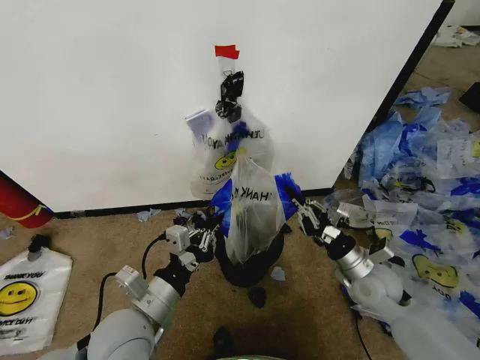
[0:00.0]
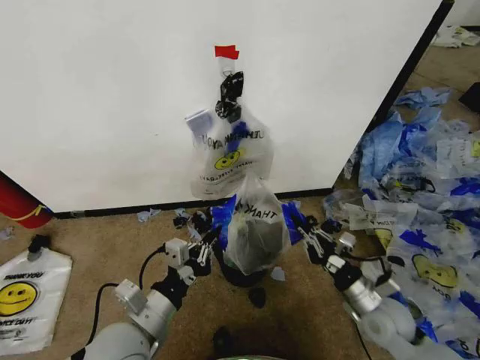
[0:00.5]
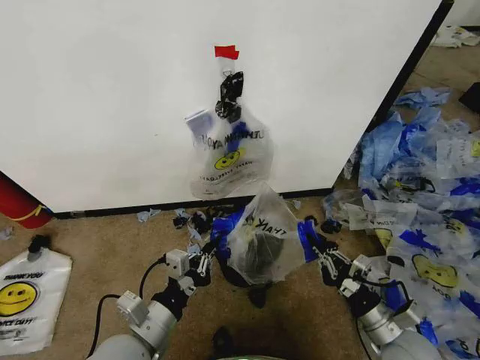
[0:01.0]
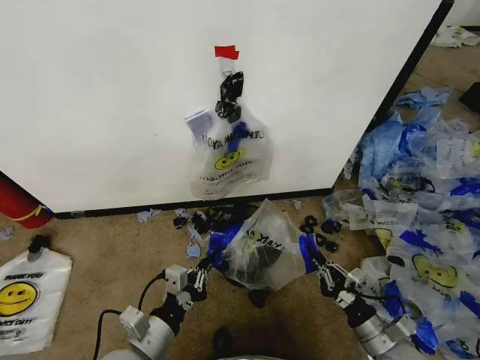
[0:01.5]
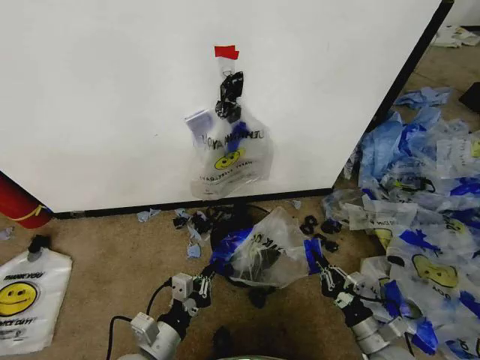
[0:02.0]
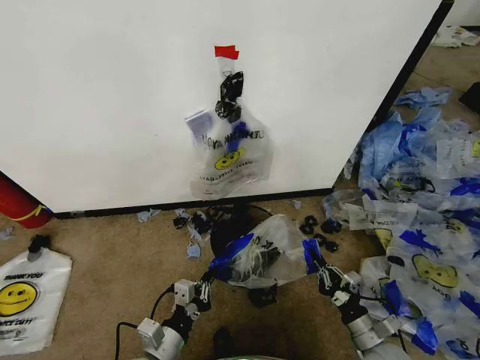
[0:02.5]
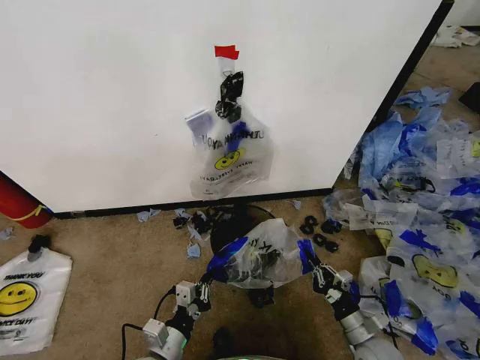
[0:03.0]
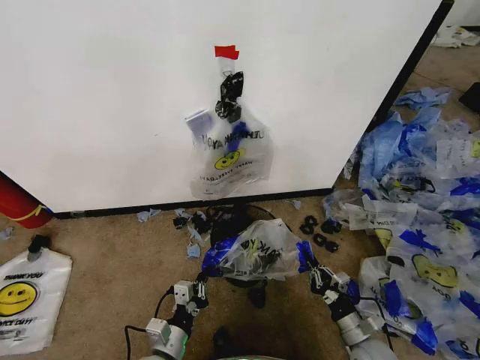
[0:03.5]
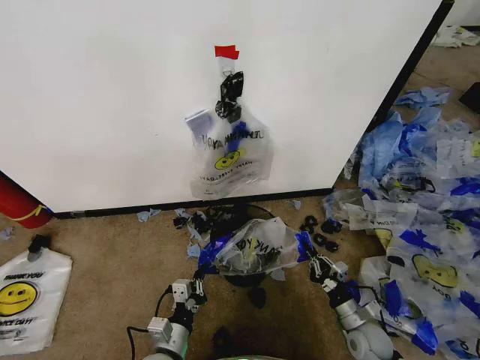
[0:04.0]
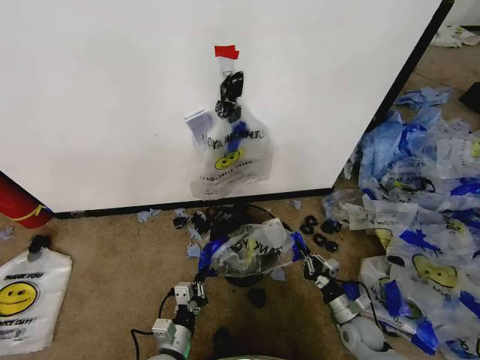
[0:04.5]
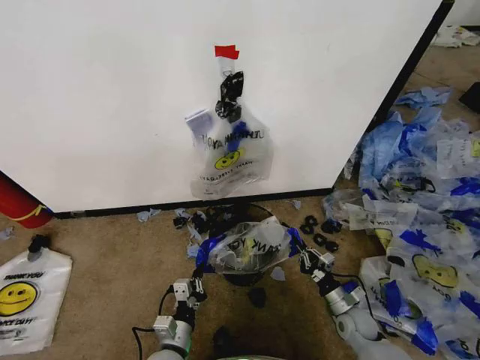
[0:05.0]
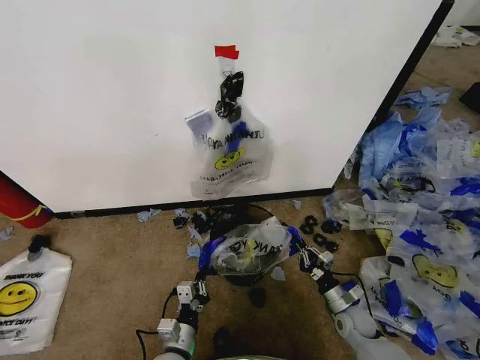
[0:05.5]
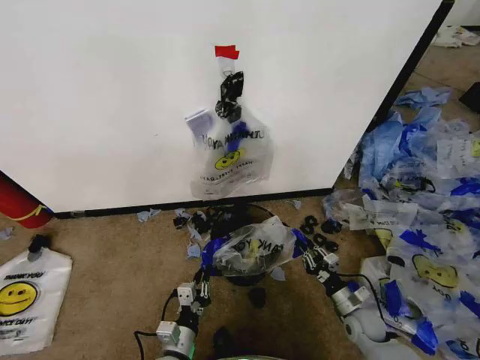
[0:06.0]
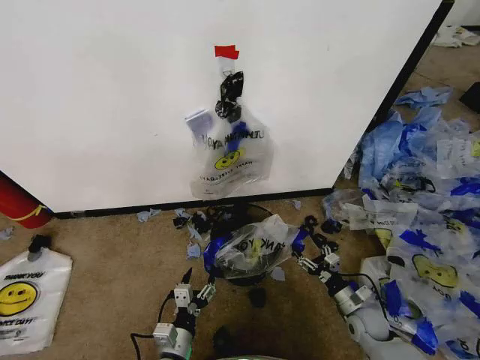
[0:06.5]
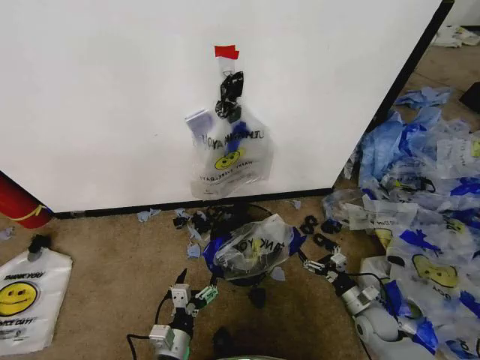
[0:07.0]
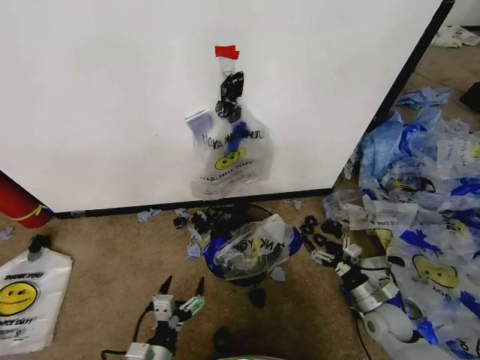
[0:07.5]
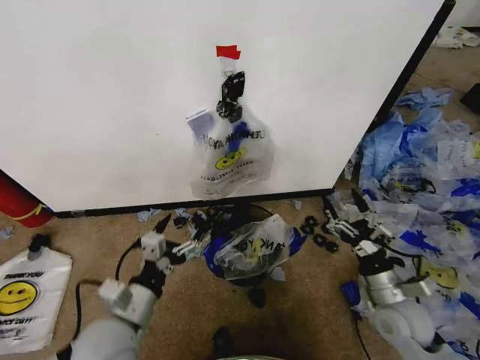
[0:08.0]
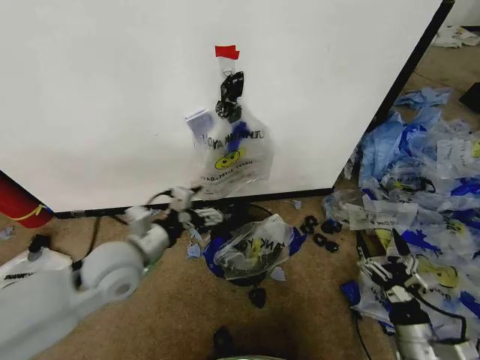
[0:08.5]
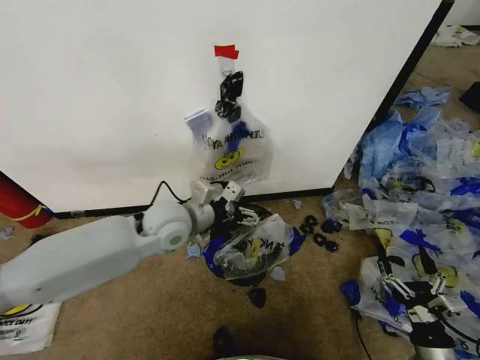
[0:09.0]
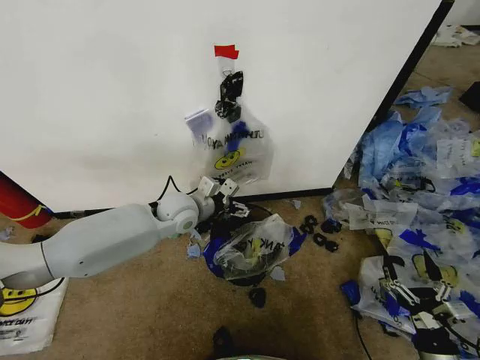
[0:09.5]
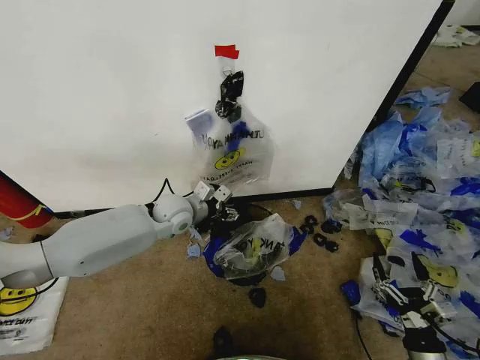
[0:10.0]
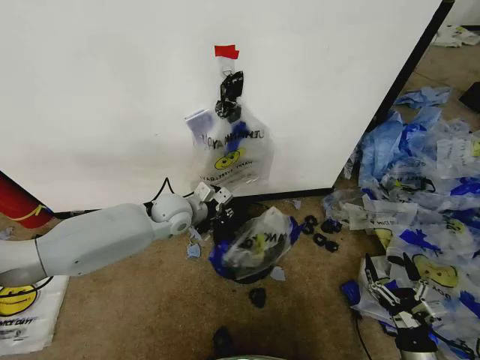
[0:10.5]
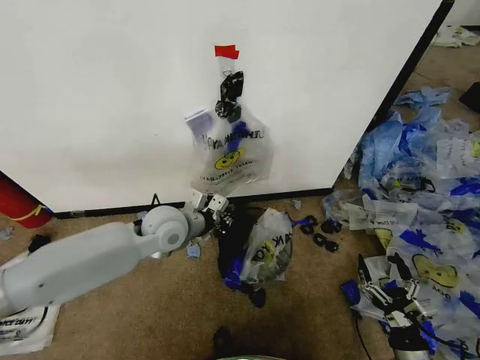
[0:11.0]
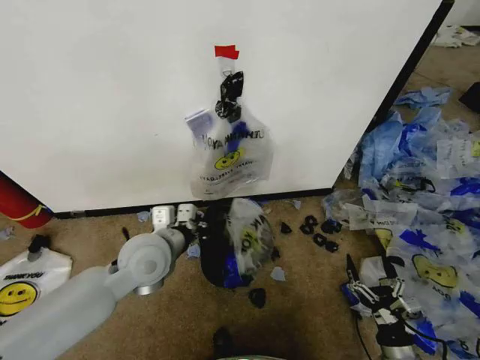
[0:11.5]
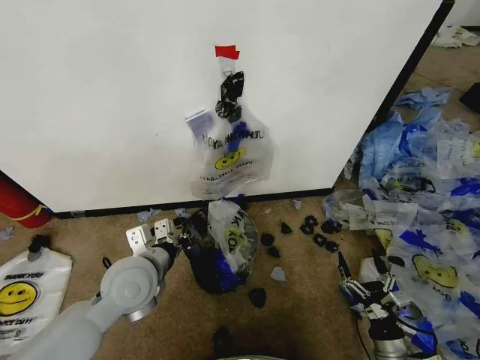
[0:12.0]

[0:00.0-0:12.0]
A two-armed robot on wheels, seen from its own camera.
Task of the whole recording: Pick up the garbage bag from the wall and place it over the trash bin.
0:00.0 to 0:02.0: The left gripper is displaced downward by some 10 cm. Meanwhile the right gripper goes some 20 cm backward and downward.
0:02.0 to 0:04.0: The right gripper shifts roughly 10 cm forward and downward, while the left gripper goes about 10 cm downward.
0:04.0 to 0:06.0: The grippers make only small movements.
0:06.0 to 0:08.0: The grippers both shift upward by some 20 cm. The right gripper opens up; the left gripper opens up.
0:08.0 to 0:10.0: The right gripper travels backward and downward by about 15 cm. The left gripper goes approximately 30 cm forward.
0:10.0 to 0:12.0: The left gripper shifts some 20 cm backward, and closes up; the right gripper changes place by roughly 5 cm.

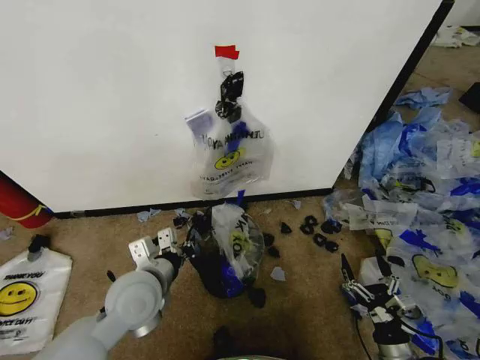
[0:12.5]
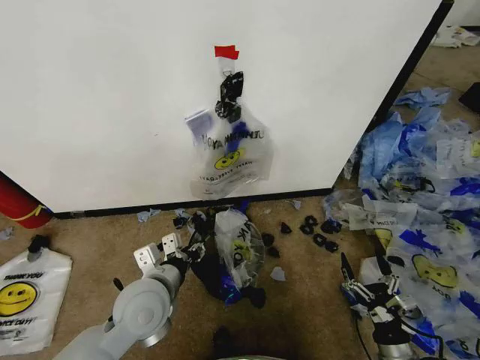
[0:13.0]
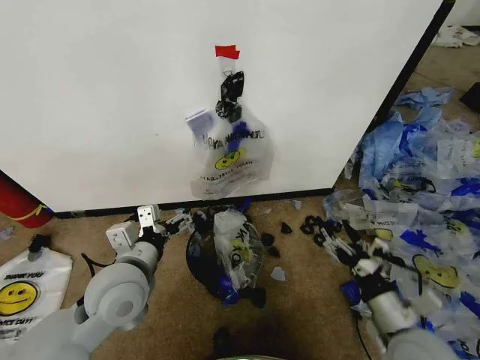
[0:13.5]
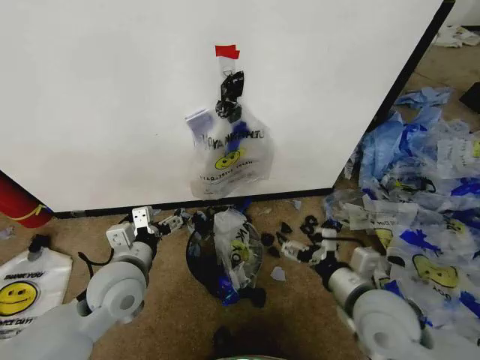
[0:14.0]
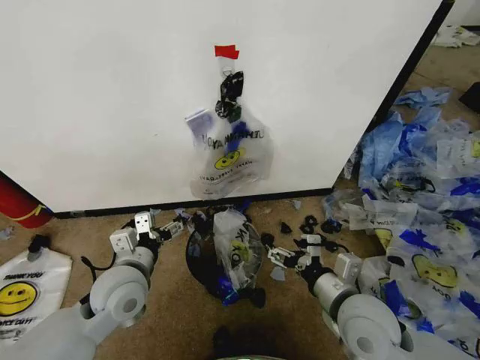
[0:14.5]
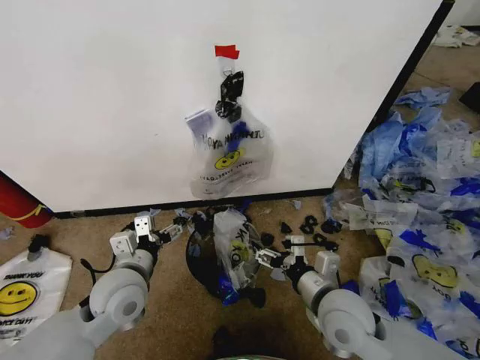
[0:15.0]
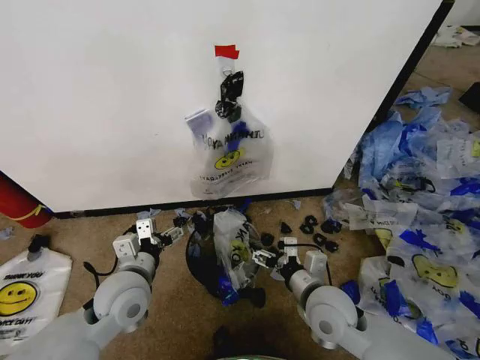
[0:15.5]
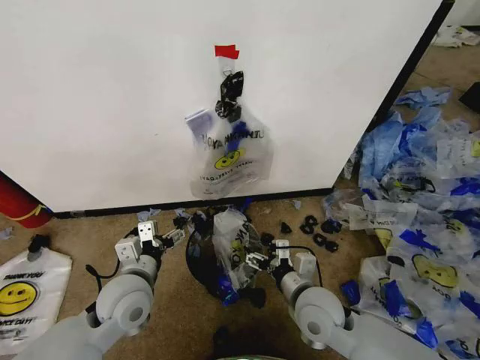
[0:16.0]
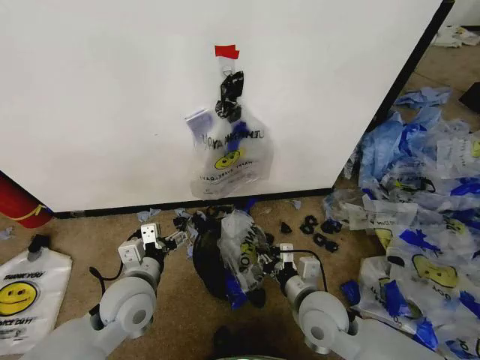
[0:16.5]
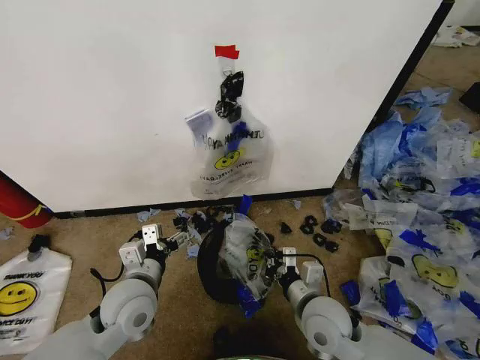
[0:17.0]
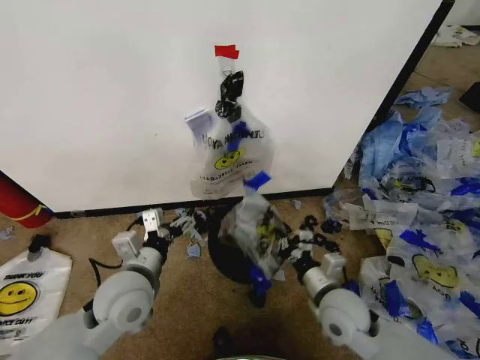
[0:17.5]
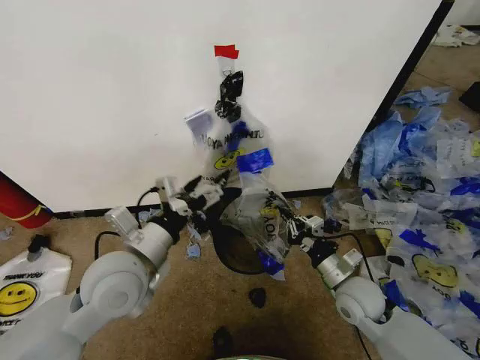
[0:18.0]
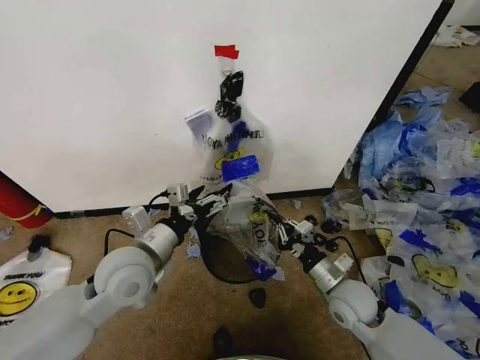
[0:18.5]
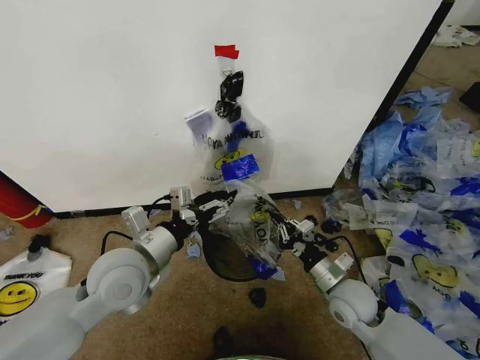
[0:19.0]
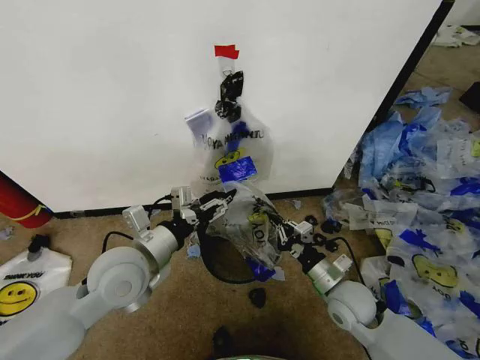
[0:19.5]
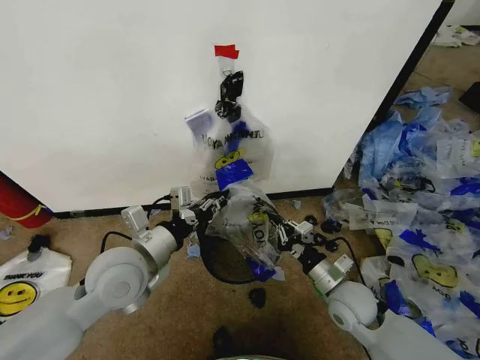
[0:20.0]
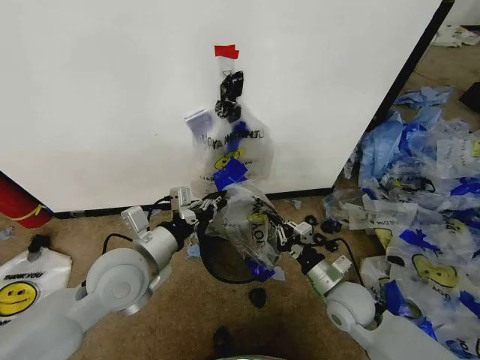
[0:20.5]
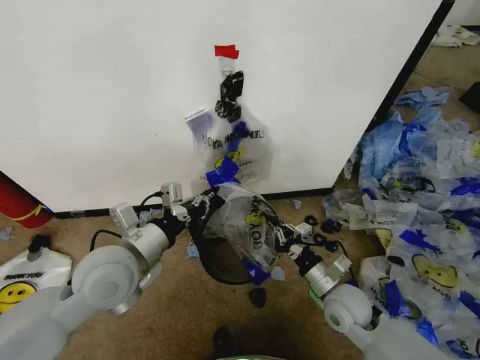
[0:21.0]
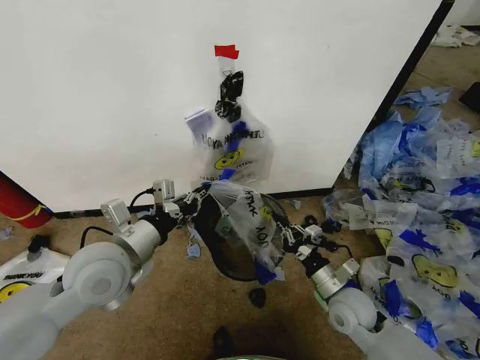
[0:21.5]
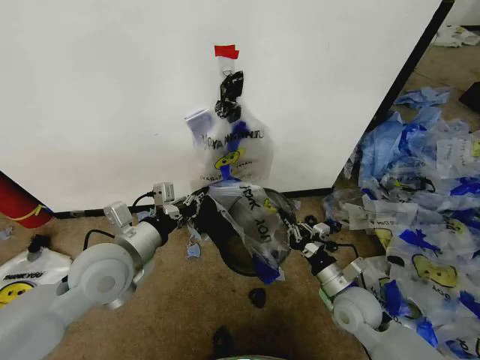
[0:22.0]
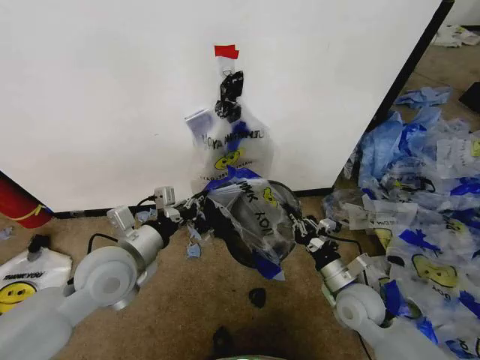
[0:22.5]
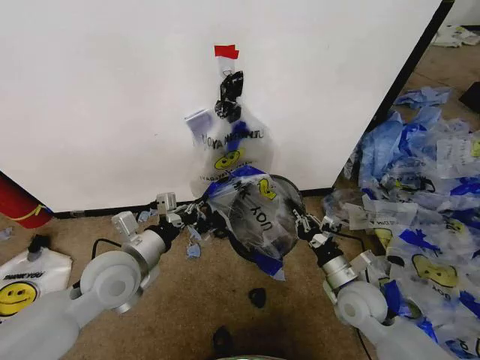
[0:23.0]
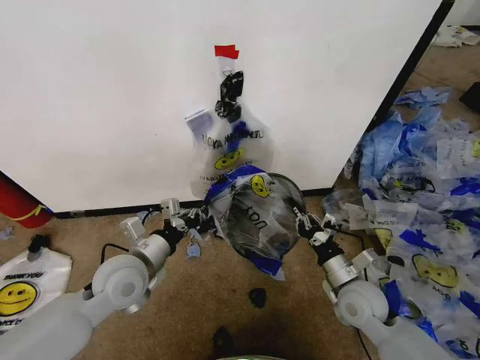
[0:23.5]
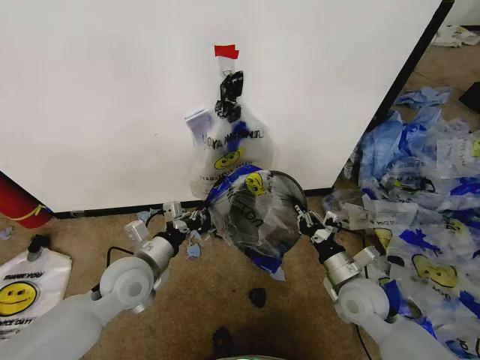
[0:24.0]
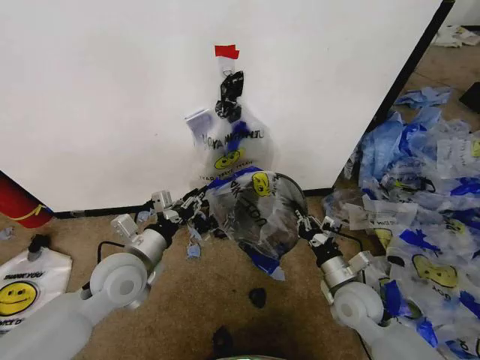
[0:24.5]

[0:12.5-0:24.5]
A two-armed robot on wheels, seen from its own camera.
Task of the whole recording: Pick up the garbage bag from the wall and place it over the trash bin.
0:12.5 to 0:14.5: The right gripper moves upward, to the left and forward, approximately 25 cm. Meanwhile the left gripper opens.
0:14.5 to 0:16.5: The right gripper is displaced downward and to the left by about 10 cm, and closes its fingers.
0:16.5 to 0:18.5: The right gripper moves to the right, roughly 10 cm, and closes, while the left gripper goes some 10 cm upward.
0:18.5 to 0:20.5: The left gripper closes up.
0:20.5 to 0:22.5: There are only small adjustments of the grippers.
0:22.5 to 0:24.5: The left gripper opens up.

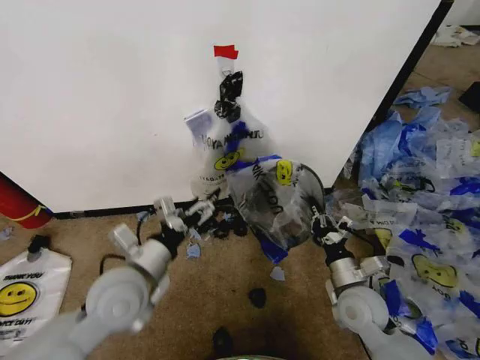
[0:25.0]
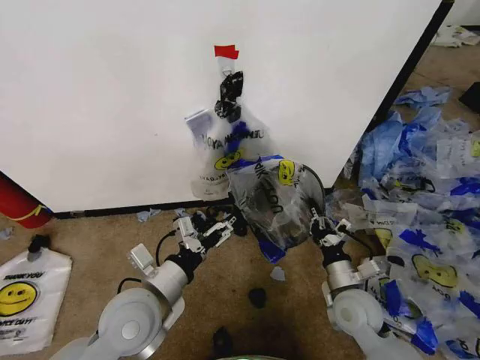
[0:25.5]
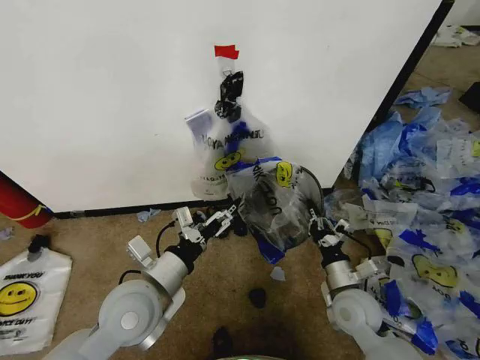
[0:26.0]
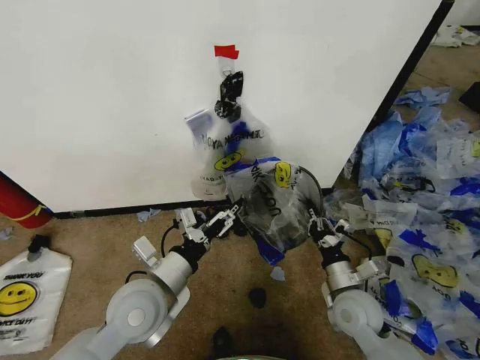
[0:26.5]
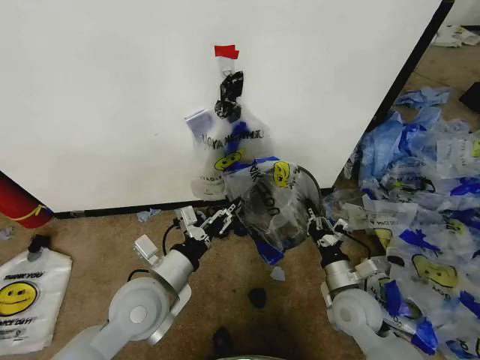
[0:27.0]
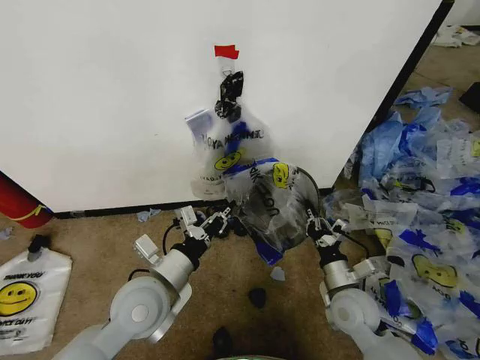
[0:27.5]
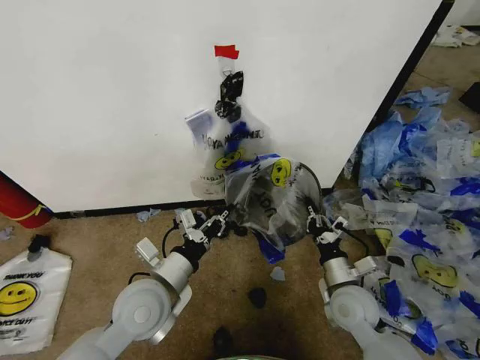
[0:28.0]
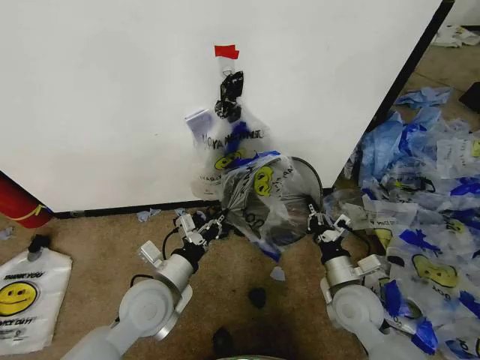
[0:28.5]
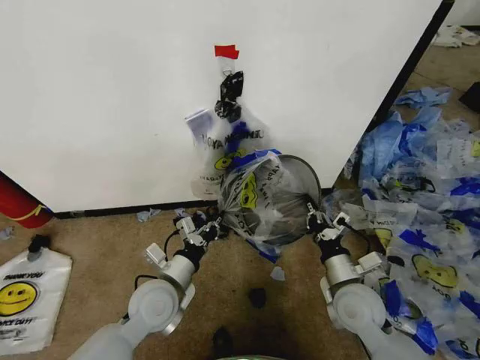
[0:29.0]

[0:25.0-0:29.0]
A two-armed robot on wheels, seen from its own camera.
Task of the whole recording: Pick up the garbage bag from the wall and place it over the trash bin.
0:25.0 to 0:27.0: The left gripper closes its fingers.
0:27.0 to 0:29.0: The left gripper travels downward by about 5 cm, and closes its fingers.
